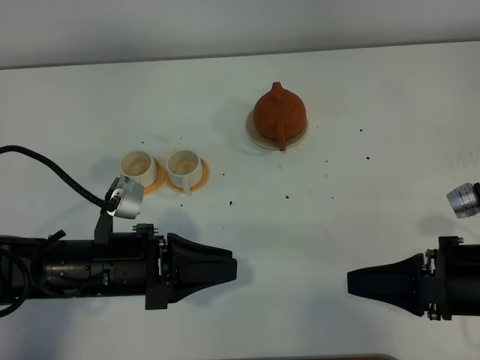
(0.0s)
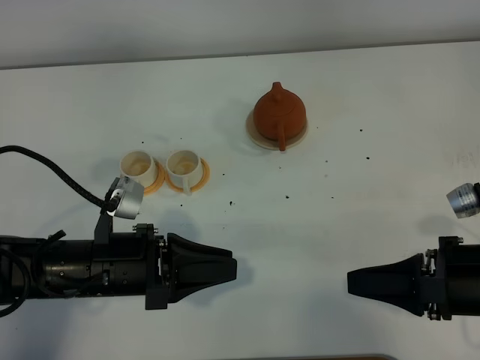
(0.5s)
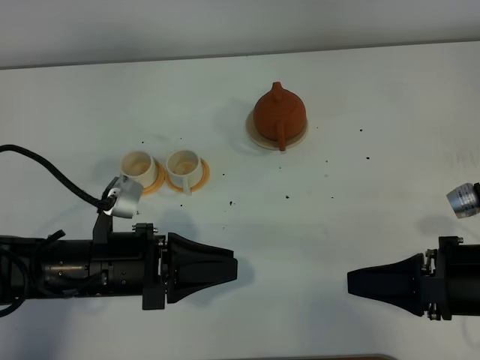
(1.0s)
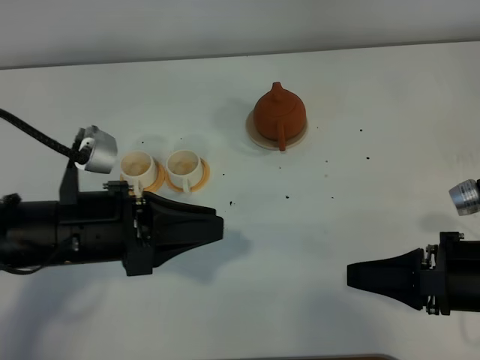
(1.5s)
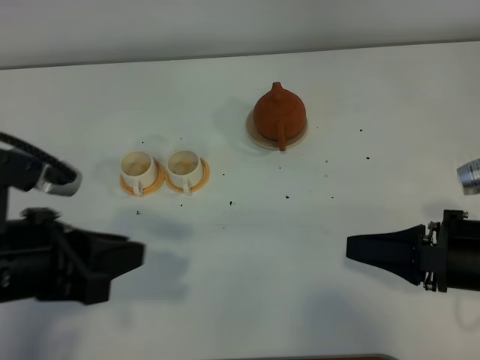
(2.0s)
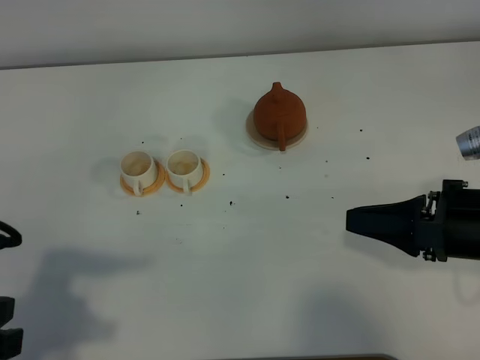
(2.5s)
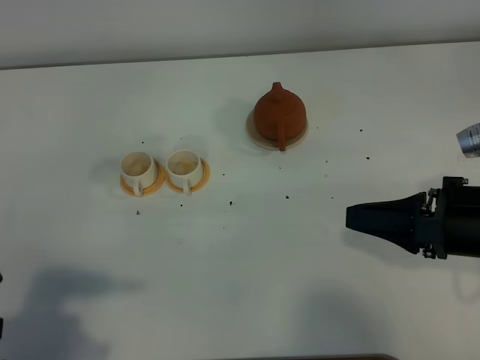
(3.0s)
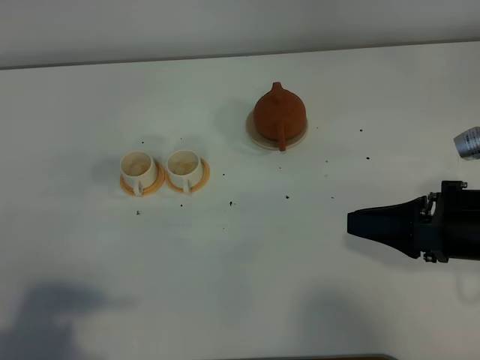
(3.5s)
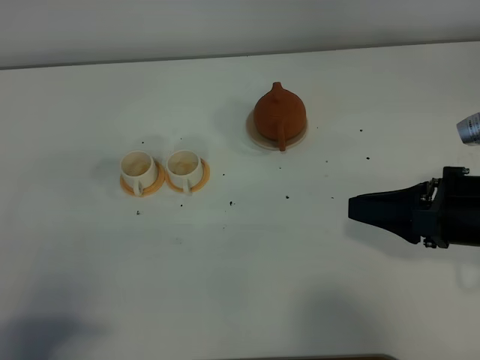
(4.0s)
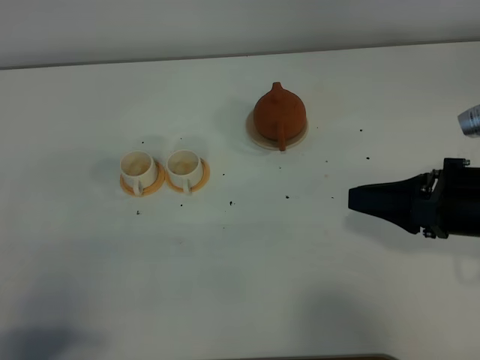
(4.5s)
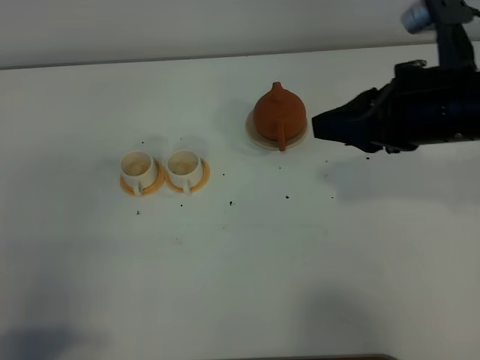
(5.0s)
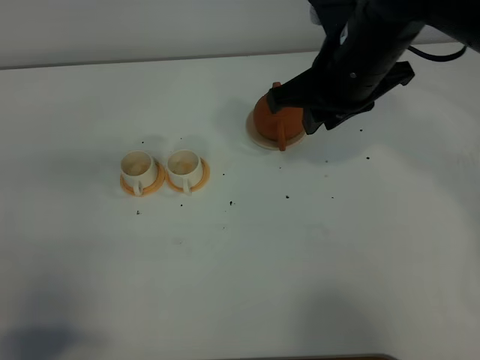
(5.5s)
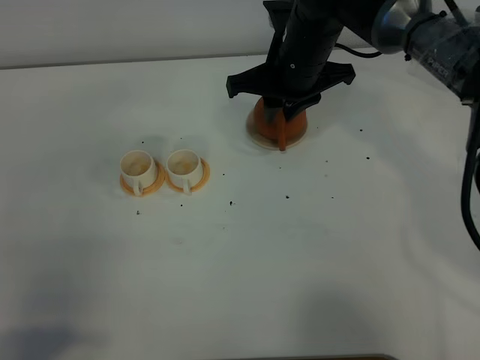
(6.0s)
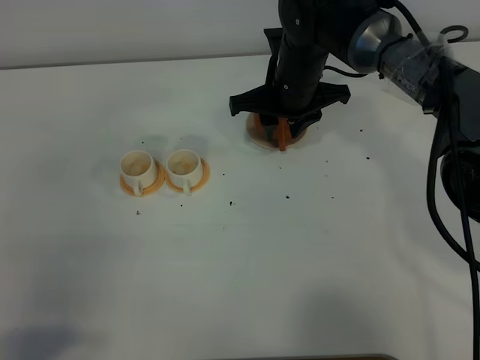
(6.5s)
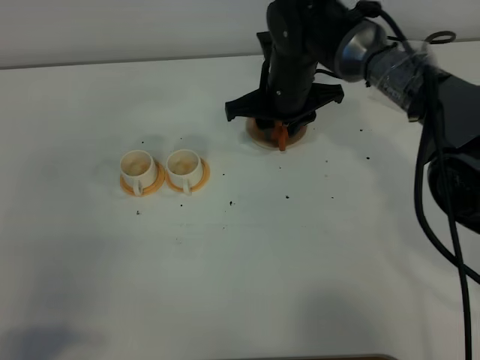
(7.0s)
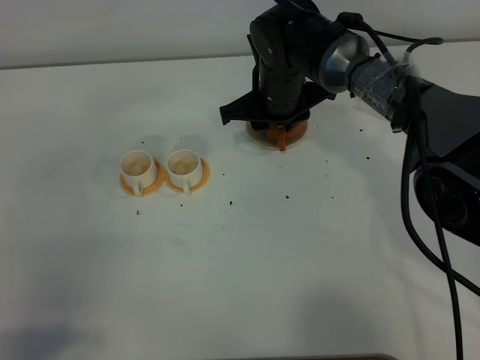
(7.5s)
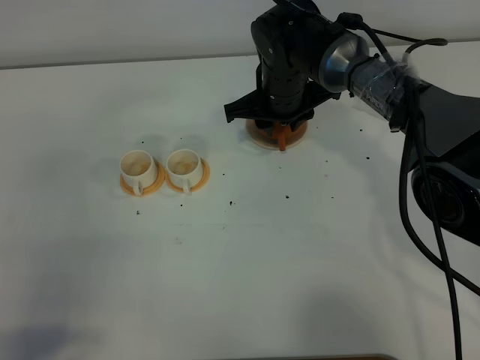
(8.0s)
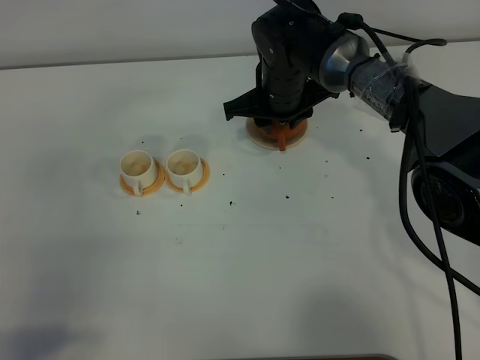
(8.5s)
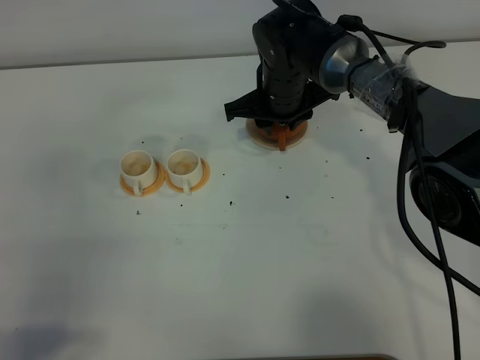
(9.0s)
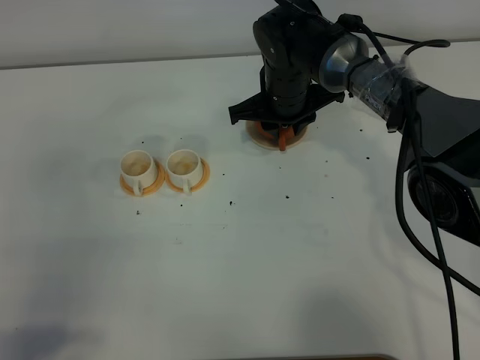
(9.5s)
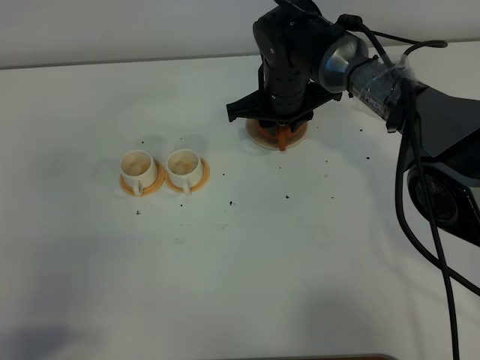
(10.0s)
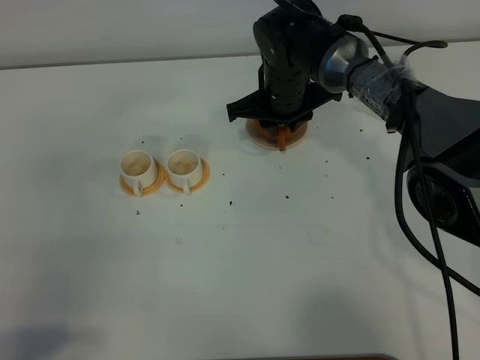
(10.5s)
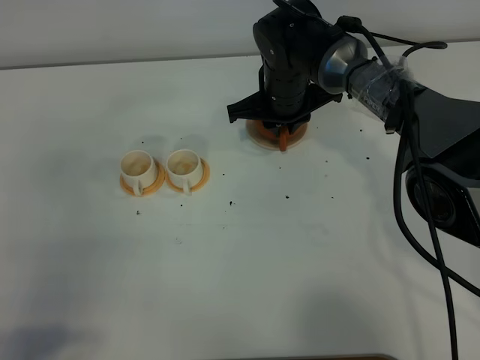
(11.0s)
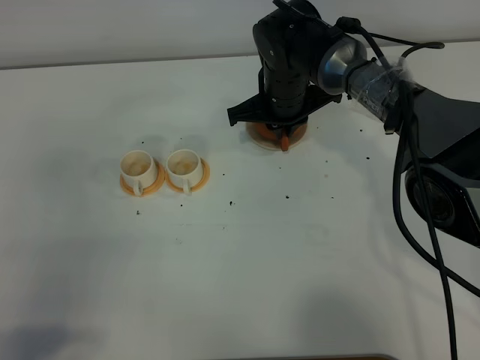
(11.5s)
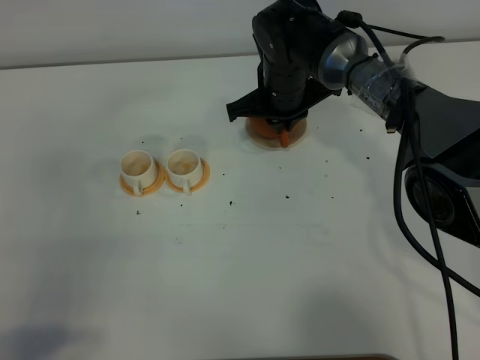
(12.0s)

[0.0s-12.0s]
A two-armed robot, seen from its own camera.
Task of the whole recording: grasp the brown teapot and pour the tea into the two white teacups one by one, put the brown teapot back in its original place.
0.0s to 2.0s: The left gripper moves upward and to the left, approximately 15 cm.
2.0s to 4.0s: The left gripper shifts approximately 15 cm backward and to the left.
4.0s to 6.0s: The right gripper travels to the left and forward by about 30 cm.
6.0s to 8.0s: The right gripper moves downward, roughly 5 cm.
8.0s to 10.0s: The two grippers keep their place.
10.0s to 12.0s: The right gripper closes up.

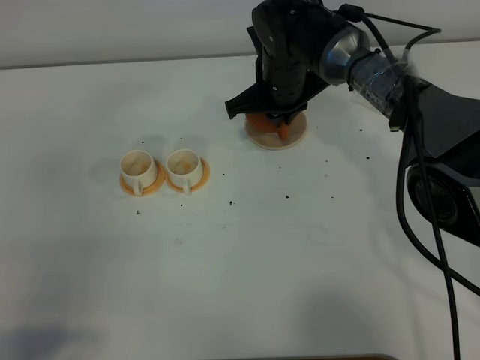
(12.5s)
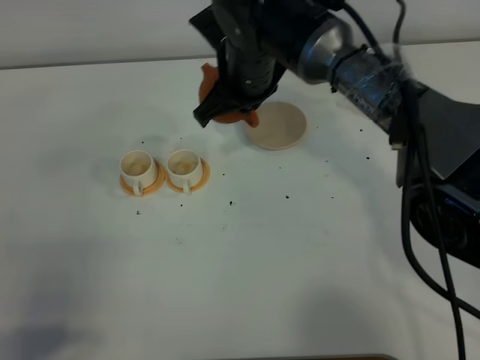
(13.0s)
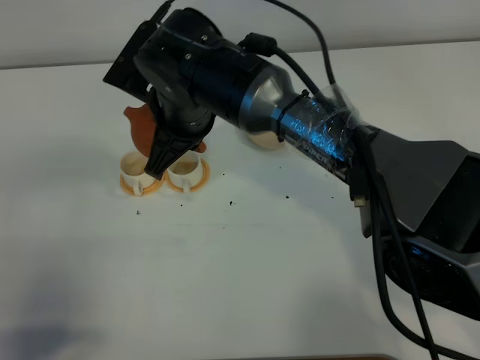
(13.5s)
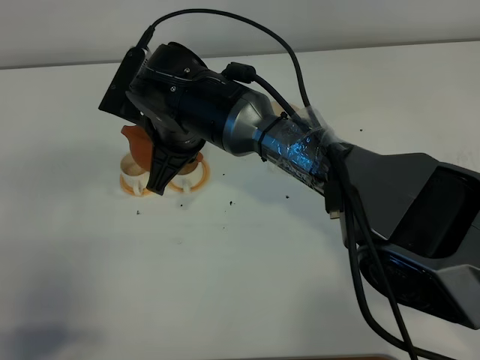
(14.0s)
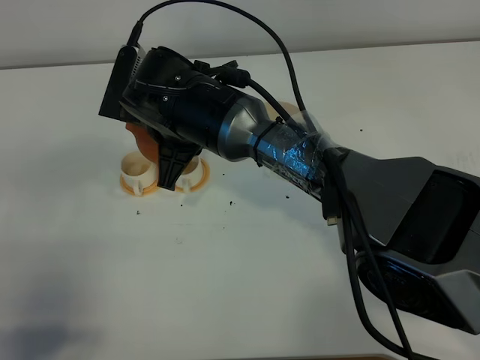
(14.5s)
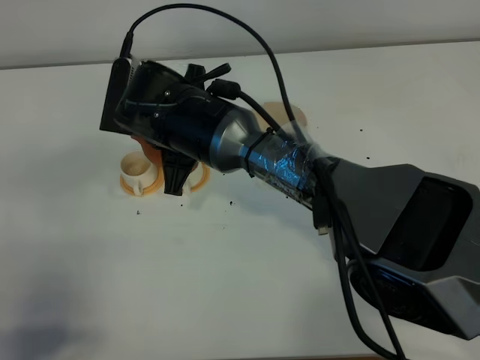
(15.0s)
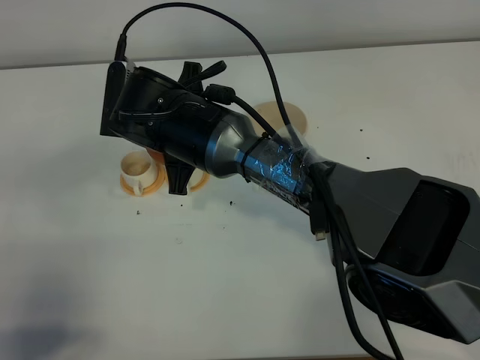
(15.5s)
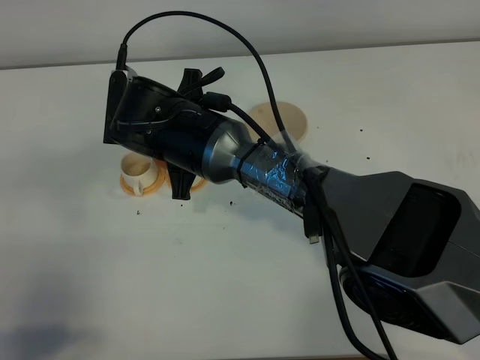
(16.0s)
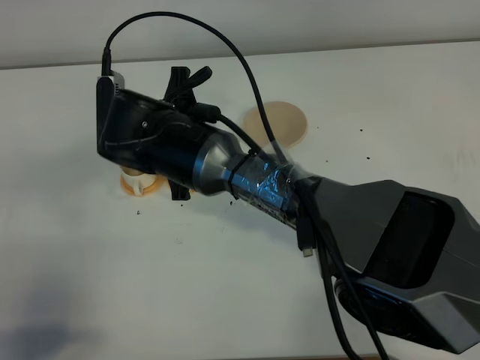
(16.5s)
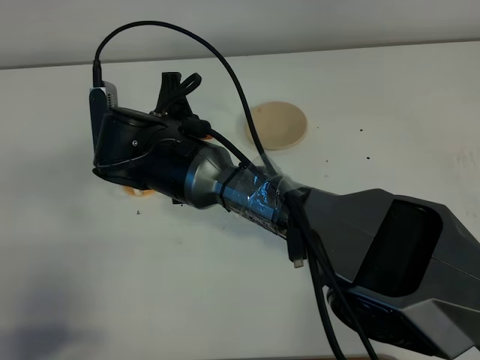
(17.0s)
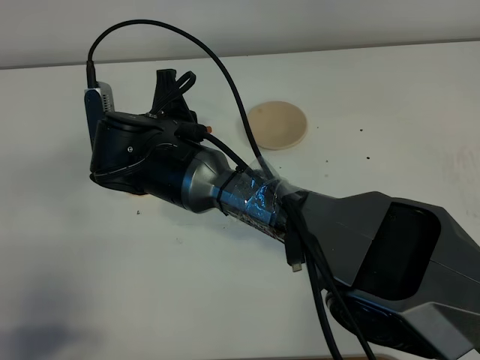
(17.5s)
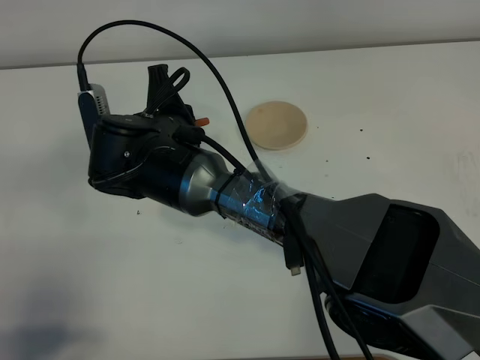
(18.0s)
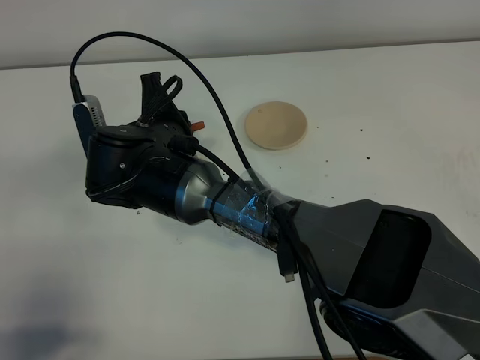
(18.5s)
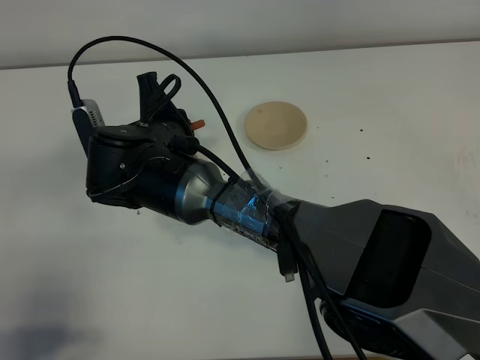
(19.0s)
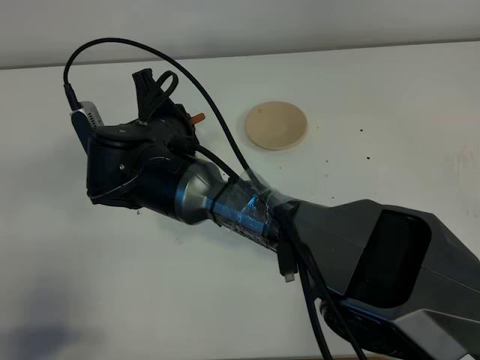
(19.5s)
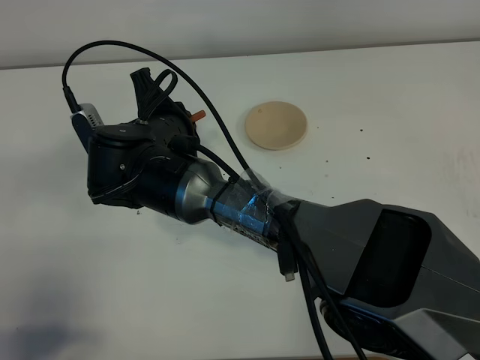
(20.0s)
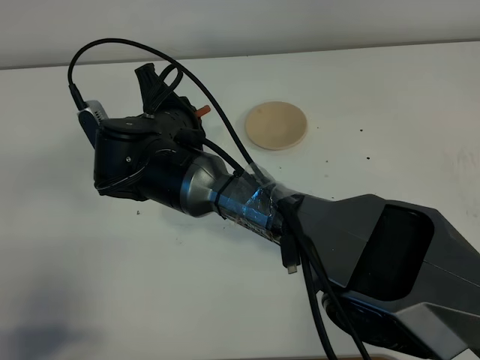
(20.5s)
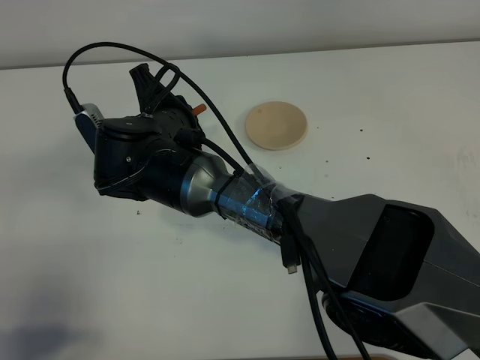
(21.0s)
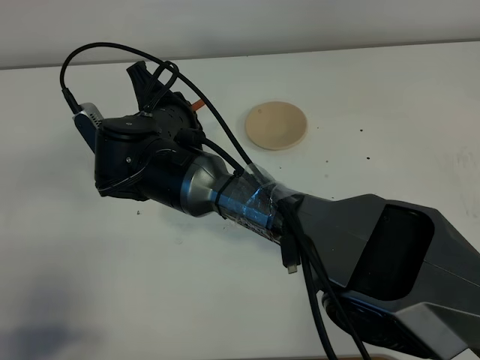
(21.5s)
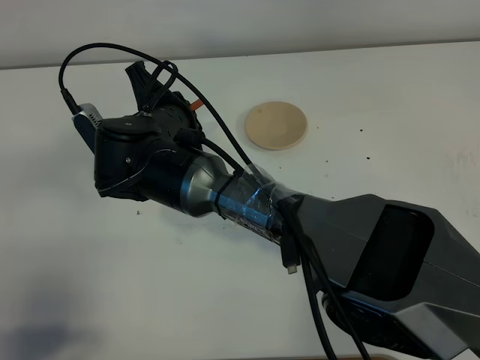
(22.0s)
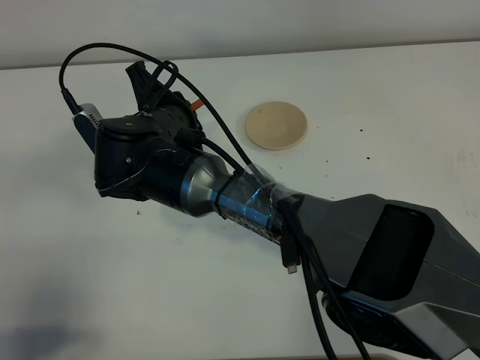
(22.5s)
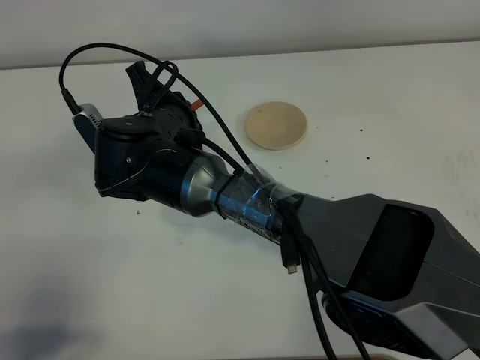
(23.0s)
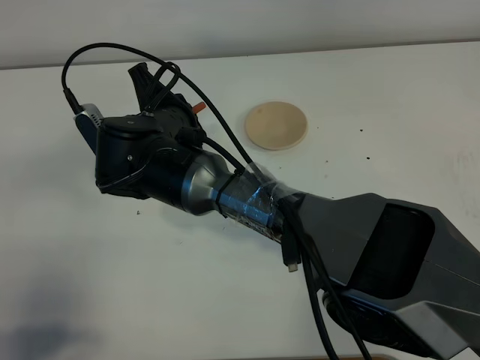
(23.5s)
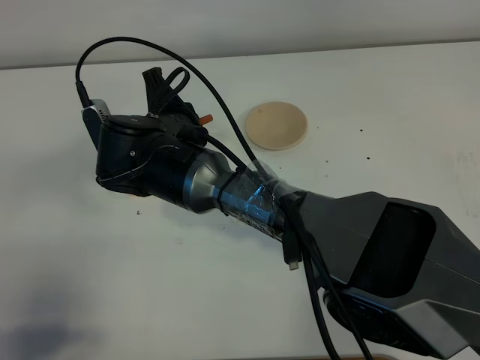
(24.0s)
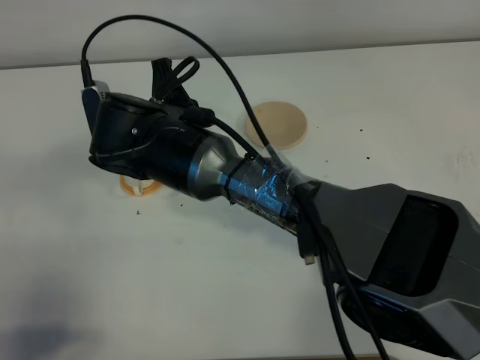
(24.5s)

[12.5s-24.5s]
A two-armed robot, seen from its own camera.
Task of the whole recording: grasp the brown teapot and pour the tea into the two white teacups one by one, put the brown teapot back in its original place.
Step, 12.5s to 24.0s: Pour tea into the teacup with the right gripper.
12.5s to 14.5s: The right gripper is displaced backward and to the left by roughly 15 cm.
18.5s to 22.5s: The grippers move only a little.

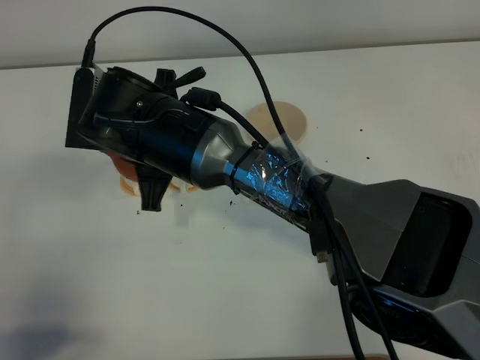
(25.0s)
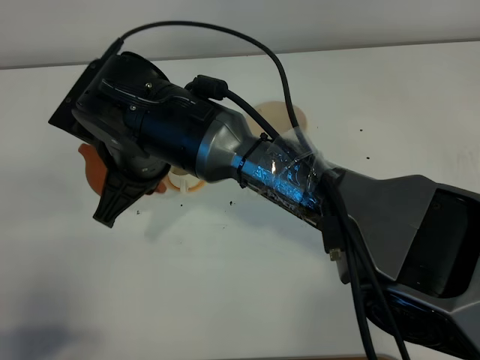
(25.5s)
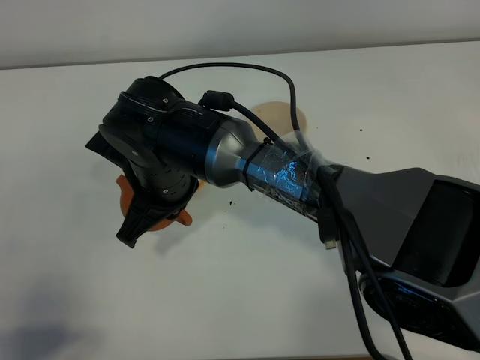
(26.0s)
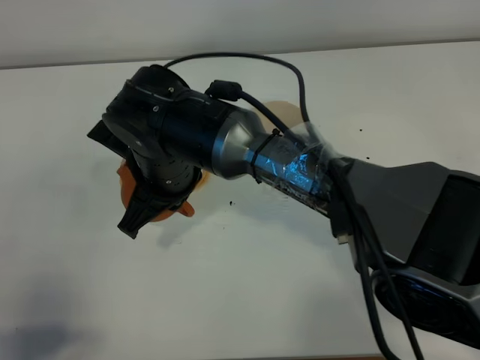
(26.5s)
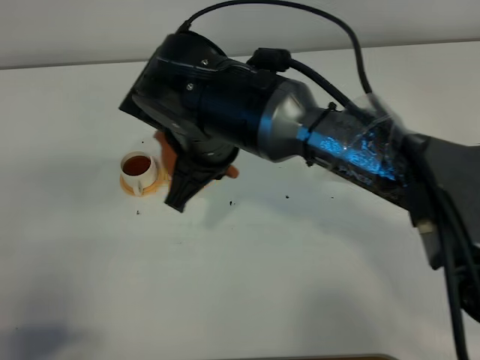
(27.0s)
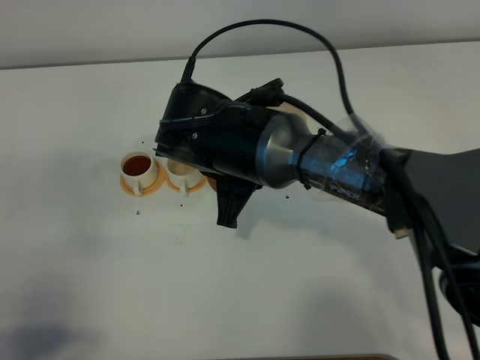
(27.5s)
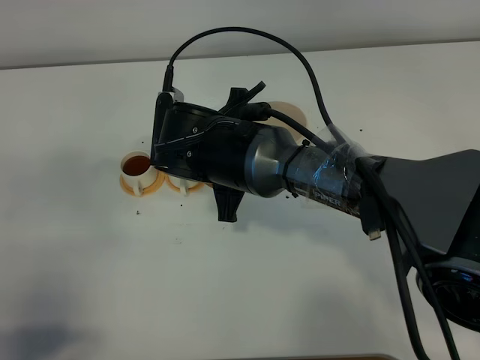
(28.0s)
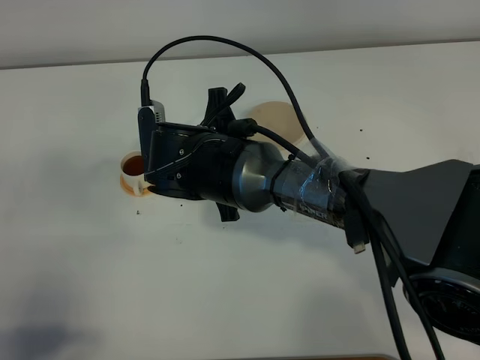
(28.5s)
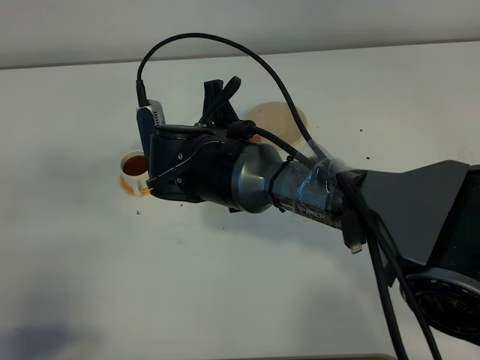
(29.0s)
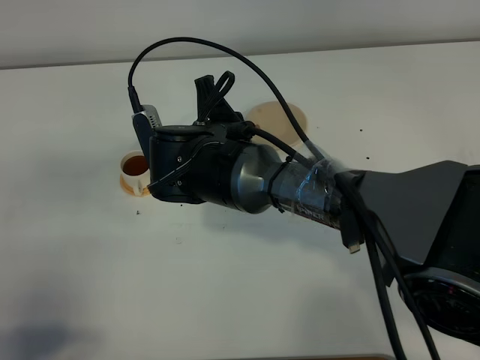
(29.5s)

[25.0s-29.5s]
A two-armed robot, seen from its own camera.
Task of the whole recording: grasp the brown teapot and pour the tea into the two white teacups one by one, put the brown teapot back in its original place.
25.0s to 27.0s: The right gripper is displaced to the right by some 5 cm.
27.0s to 29.5s: The right gripper goes approximately 5 cm downward.
